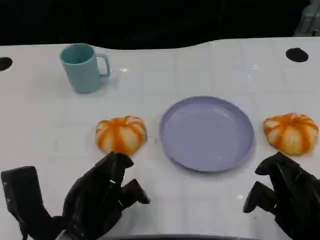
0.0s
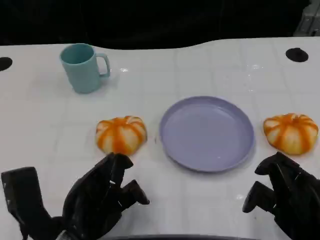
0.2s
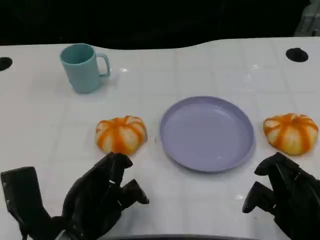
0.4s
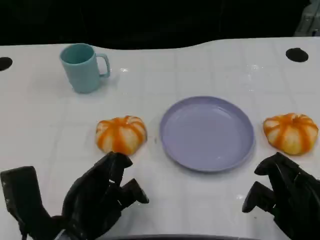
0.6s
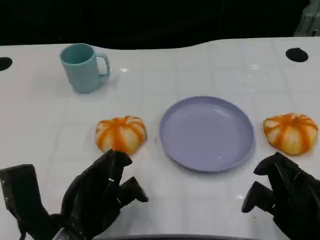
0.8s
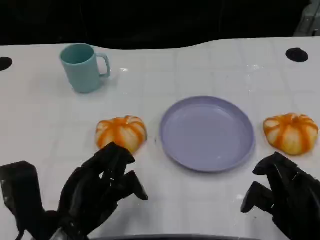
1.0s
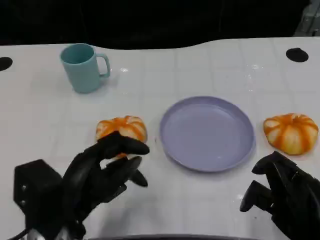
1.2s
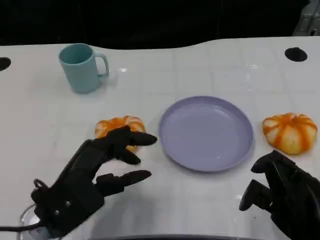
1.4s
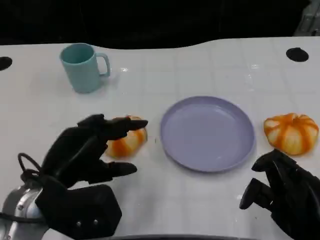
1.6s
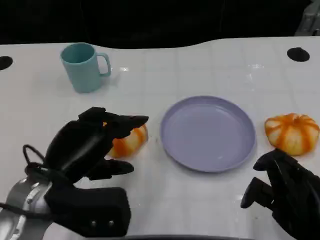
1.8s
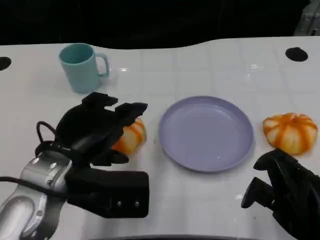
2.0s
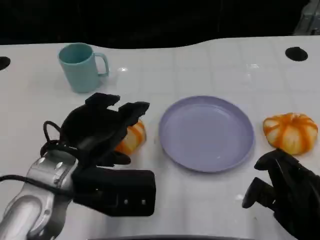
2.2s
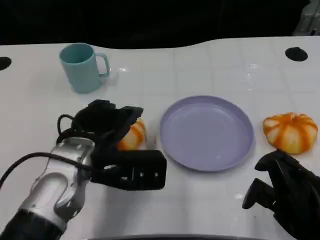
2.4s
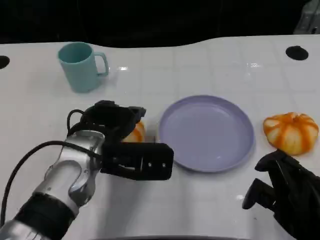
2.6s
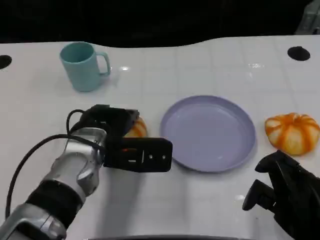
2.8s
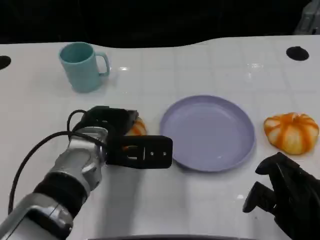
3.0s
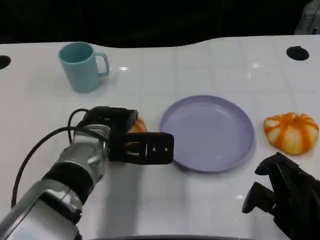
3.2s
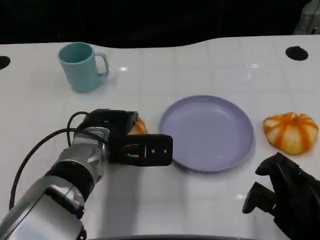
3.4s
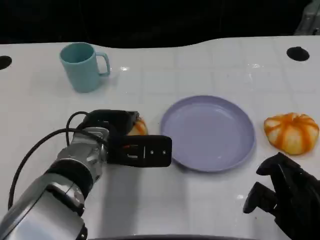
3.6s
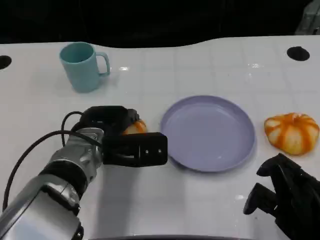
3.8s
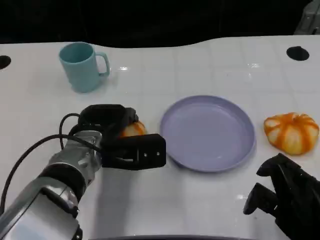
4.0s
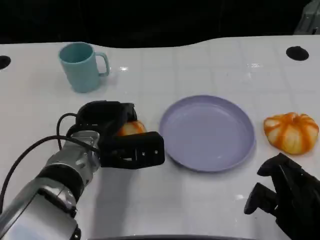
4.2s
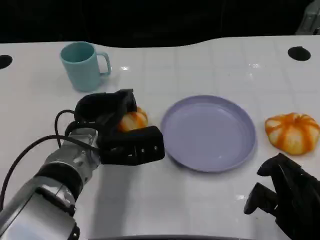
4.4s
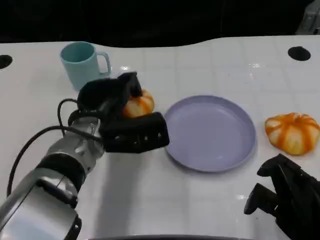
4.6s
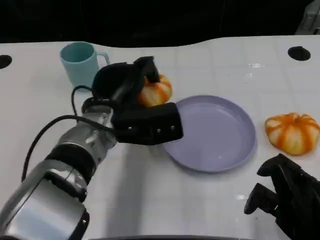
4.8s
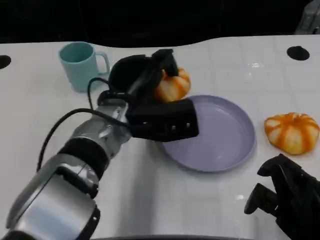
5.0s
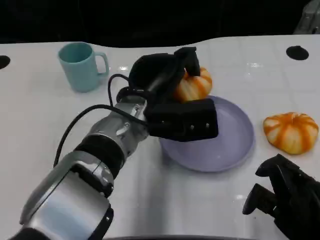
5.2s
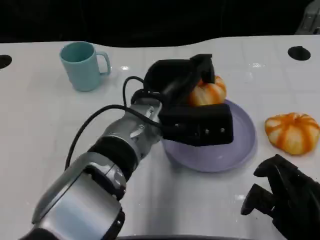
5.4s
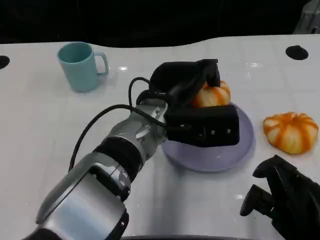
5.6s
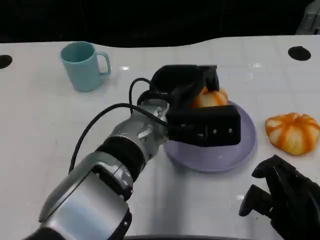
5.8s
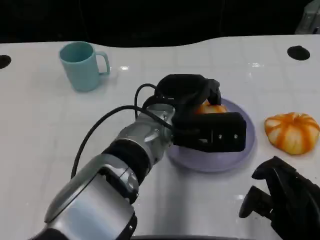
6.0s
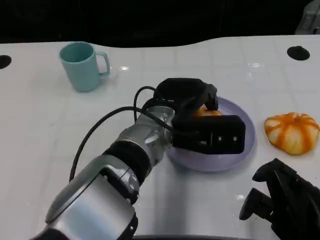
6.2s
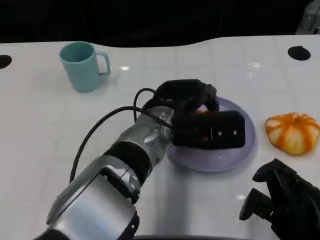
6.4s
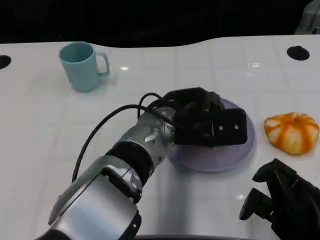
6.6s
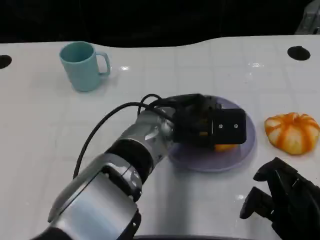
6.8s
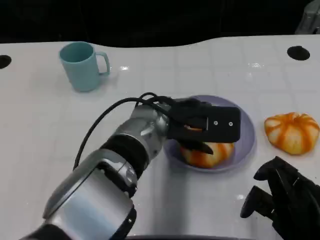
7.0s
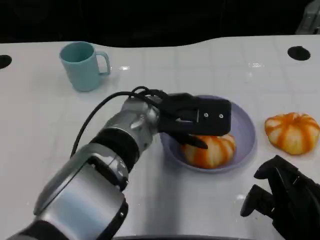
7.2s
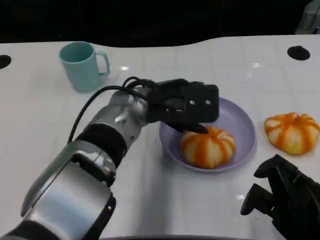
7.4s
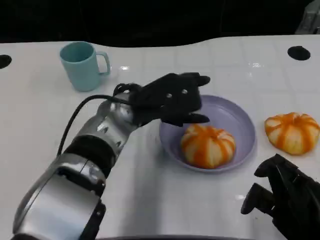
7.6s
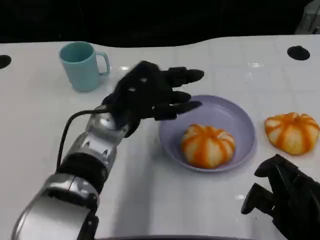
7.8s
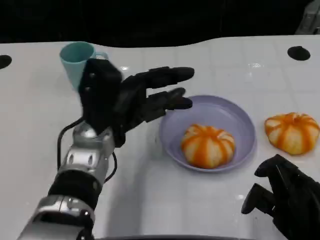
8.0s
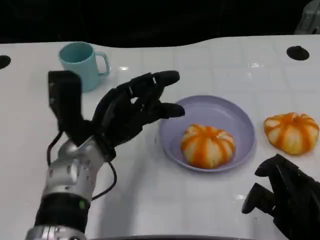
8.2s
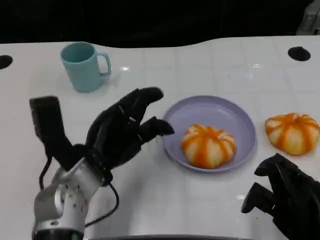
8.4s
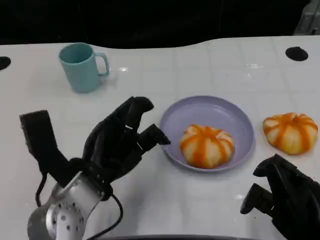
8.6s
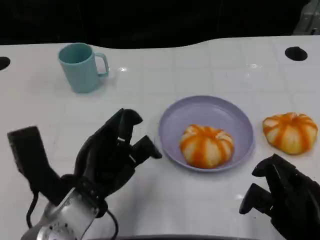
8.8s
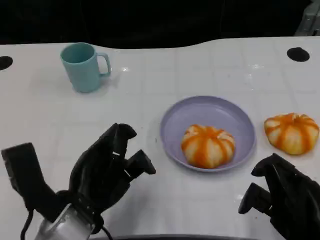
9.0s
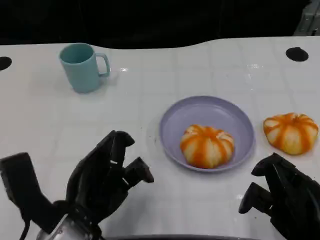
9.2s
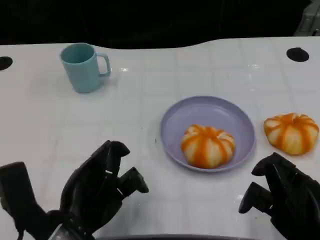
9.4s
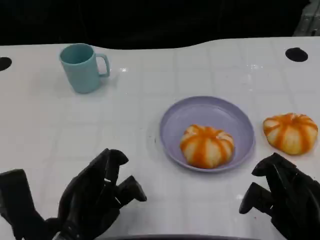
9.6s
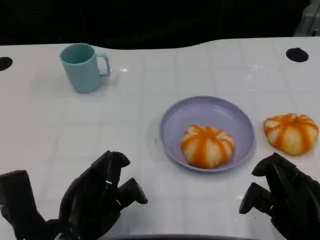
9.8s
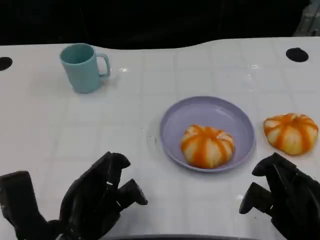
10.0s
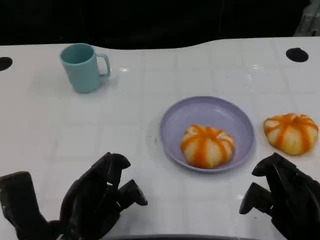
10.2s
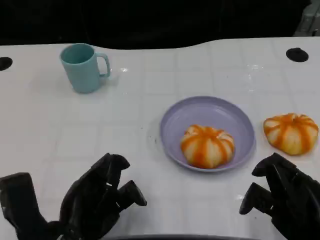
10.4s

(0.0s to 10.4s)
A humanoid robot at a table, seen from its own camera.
Task of the whole recording: Grasp the bread from the table and place it into the plate.
1.4s - 3.0s: The left hand is displaced forward and to the right by about 10 cm.
4.4s - 6.0s: The left hand goes roughly 10 cm to the right.
6.0s - 7.4s: The left hand changes place by roughly 5 cm.
7.4s - 9.0s: The left hand shifts roughly 20 cm backward, to the left and downward.
9.0s - 10.4s: The hands stay close to where they were, moving slightly.

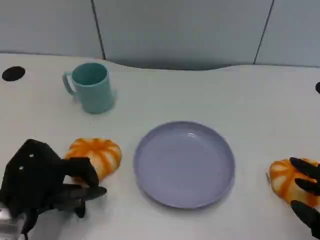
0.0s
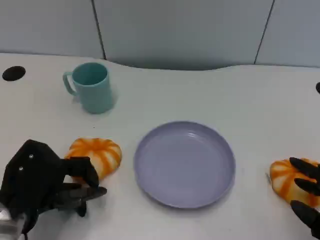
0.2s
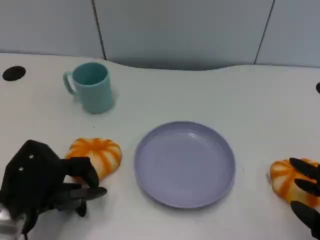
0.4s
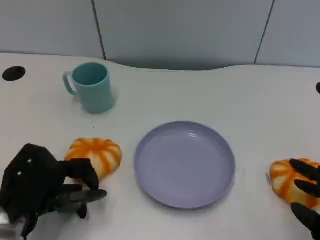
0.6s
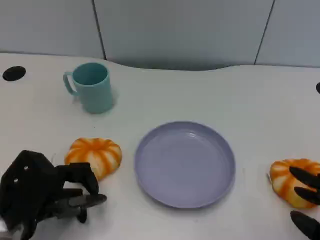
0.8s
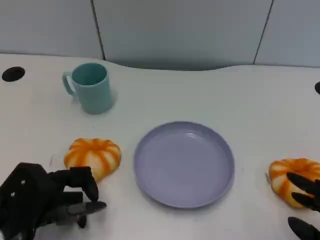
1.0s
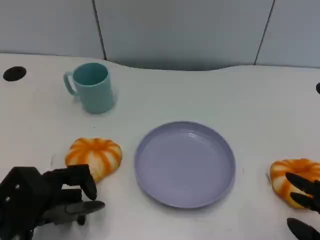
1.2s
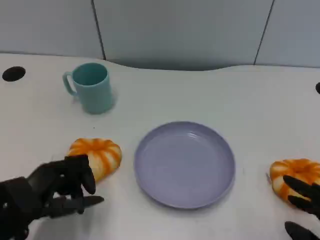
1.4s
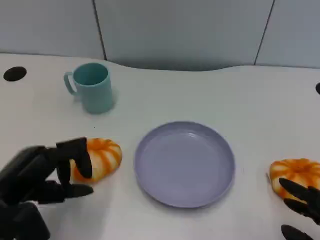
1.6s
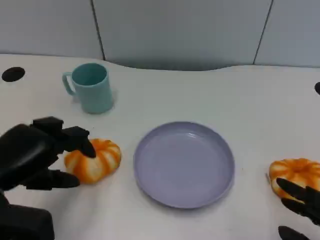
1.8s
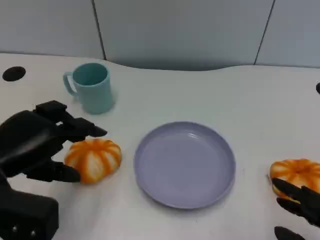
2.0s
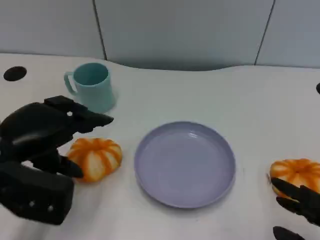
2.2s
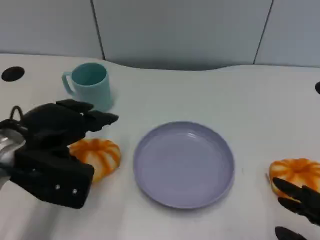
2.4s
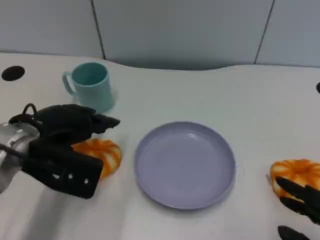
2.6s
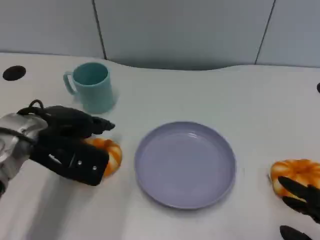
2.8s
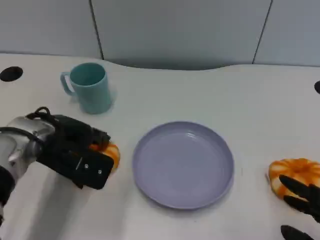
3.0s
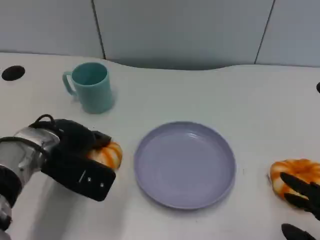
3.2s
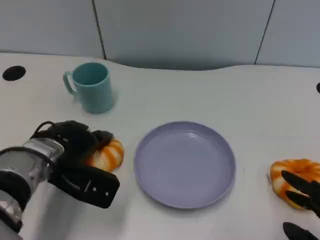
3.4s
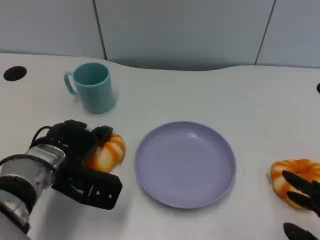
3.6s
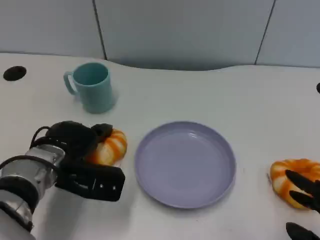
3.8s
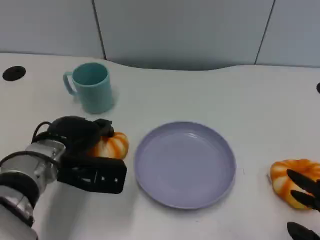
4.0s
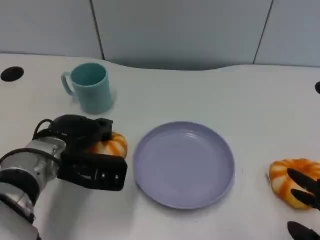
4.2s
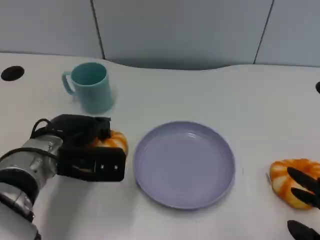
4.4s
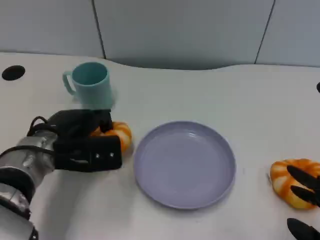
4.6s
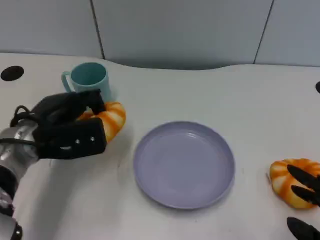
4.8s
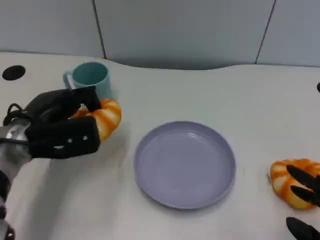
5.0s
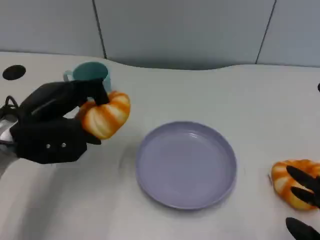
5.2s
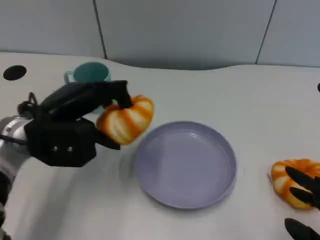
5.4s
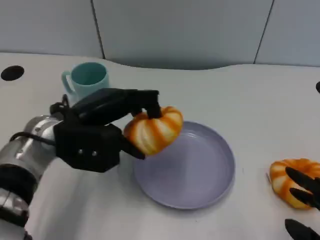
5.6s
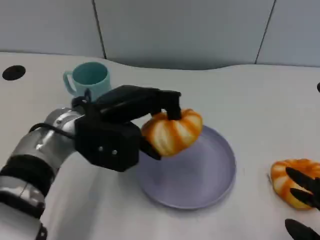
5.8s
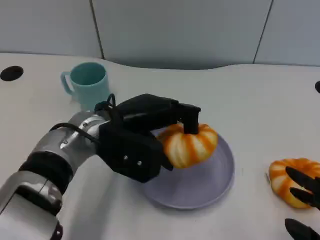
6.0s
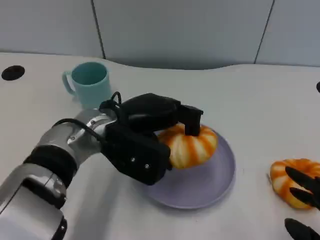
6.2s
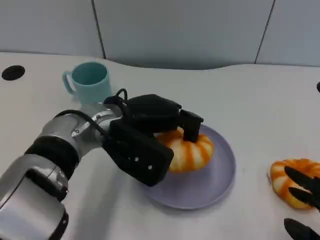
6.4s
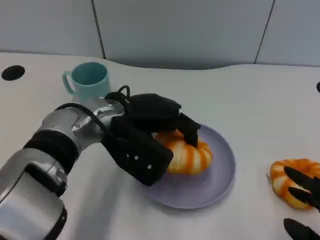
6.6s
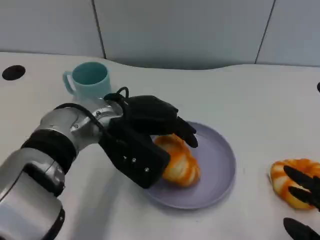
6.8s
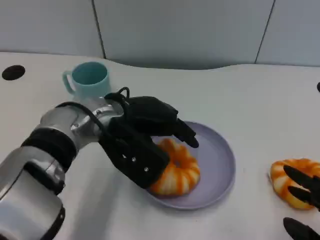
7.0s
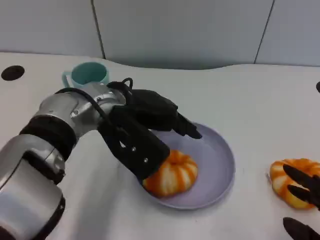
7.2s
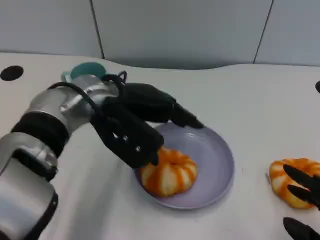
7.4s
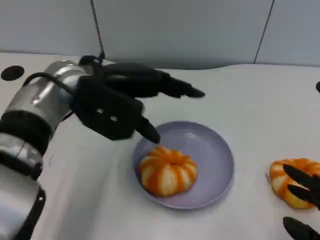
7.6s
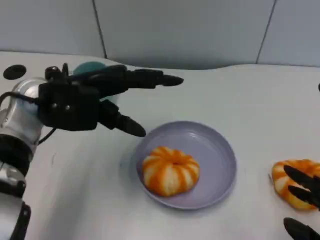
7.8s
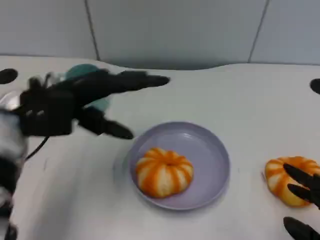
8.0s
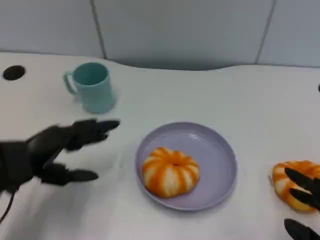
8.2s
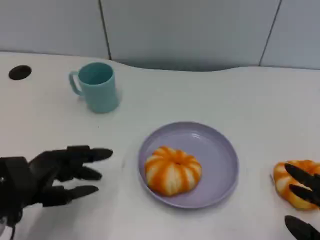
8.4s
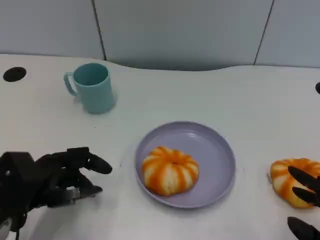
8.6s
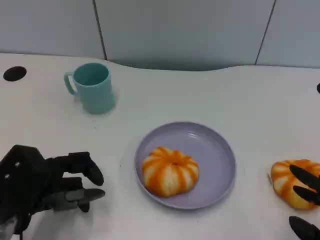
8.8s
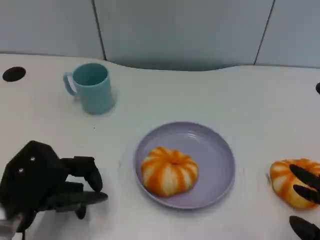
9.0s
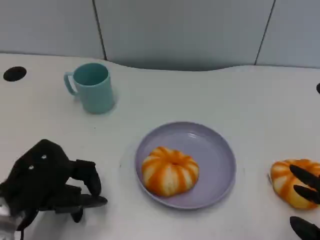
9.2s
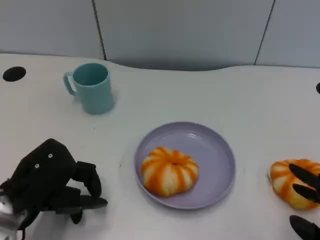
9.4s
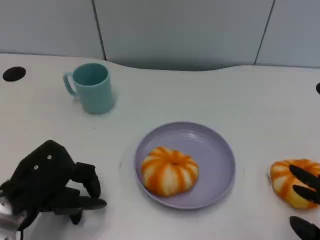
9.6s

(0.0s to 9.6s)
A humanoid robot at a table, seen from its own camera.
Task of the whole recording: Grasp the bread from the table and place it into the plate.
1.6s - 3.2s: The left hand goes about 10 cm forward and to the right.
4.8s - 6.4s: The left hand is displaced to the right by approximately 10 cm.
6.4s - 8.0s: The left hand moves to the left, some 10 cm.
8.0s - 9.6s: The left hand shifts about 10 cm backward and downward.

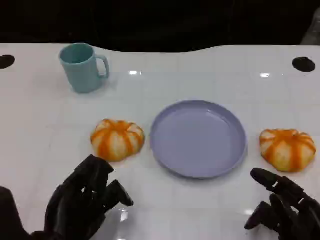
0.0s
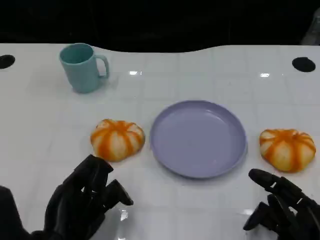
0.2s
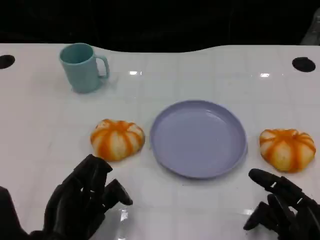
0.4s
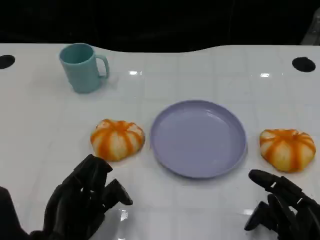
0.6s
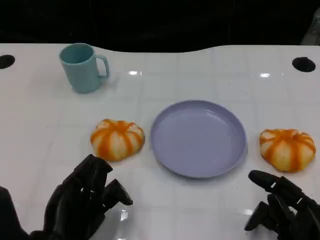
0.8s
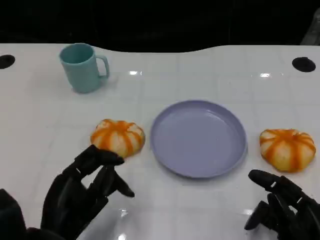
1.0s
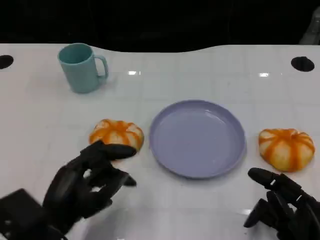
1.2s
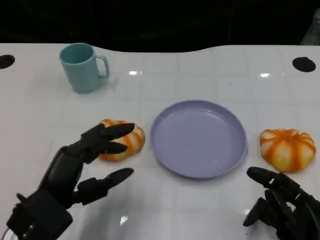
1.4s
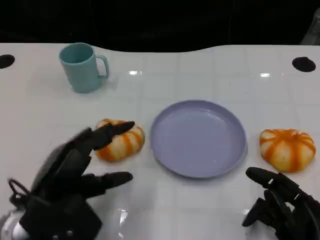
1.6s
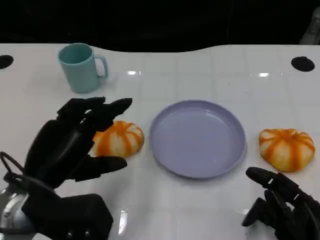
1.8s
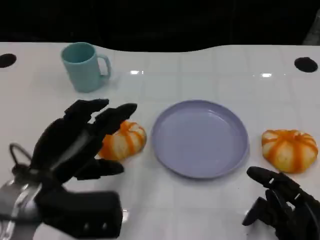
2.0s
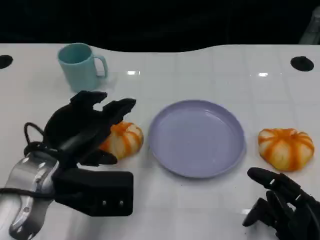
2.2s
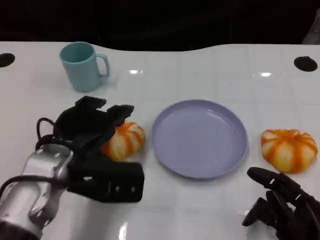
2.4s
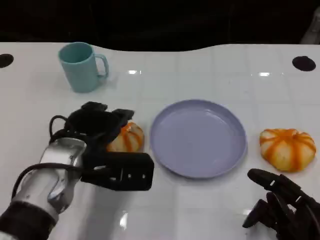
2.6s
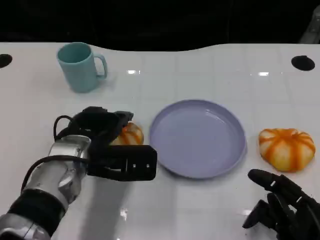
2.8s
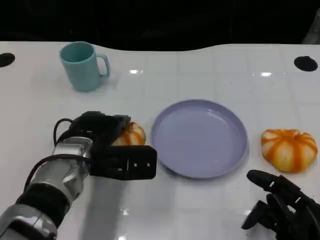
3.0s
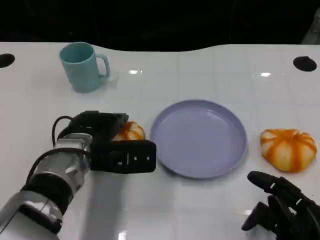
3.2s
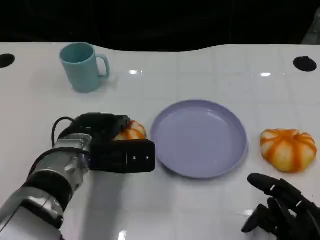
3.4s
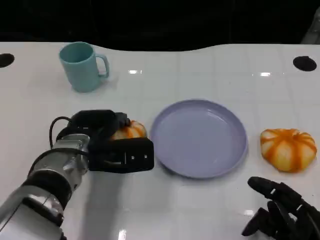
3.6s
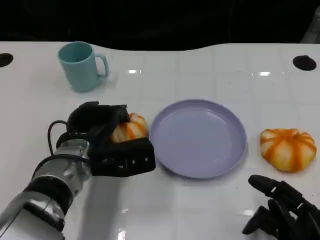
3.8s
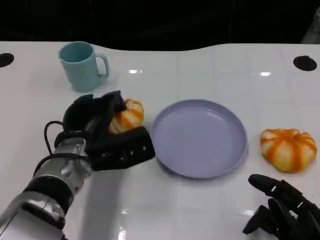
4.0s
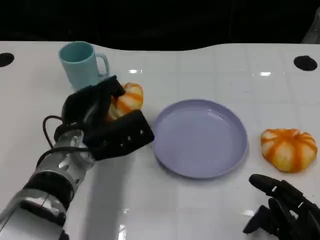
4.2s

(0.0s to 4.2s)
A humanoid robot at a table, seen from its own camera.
Task of the whole recording: Grasp the bread from the table and place it into the plate.
1.4s - 2.8s: The left hand moves forward and to the right, about 10 cm.
